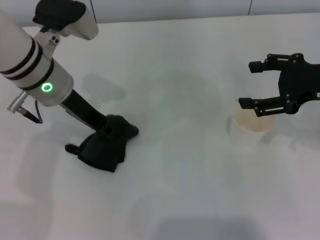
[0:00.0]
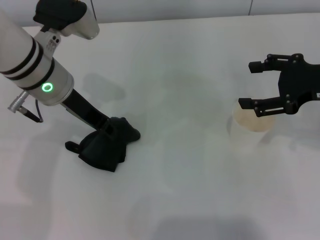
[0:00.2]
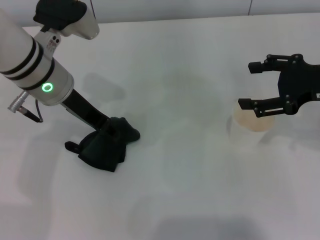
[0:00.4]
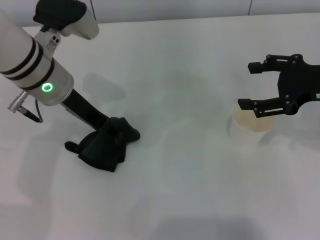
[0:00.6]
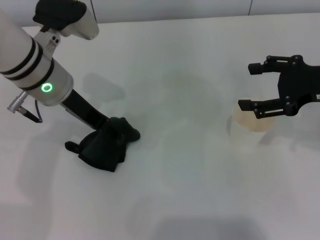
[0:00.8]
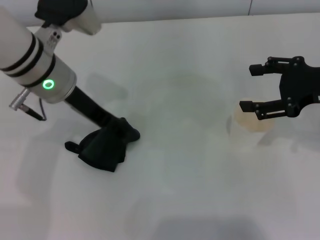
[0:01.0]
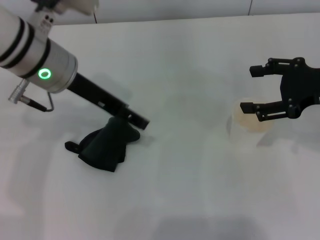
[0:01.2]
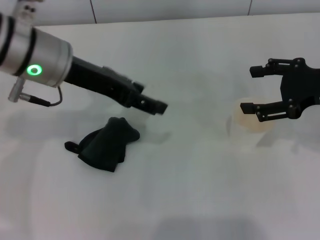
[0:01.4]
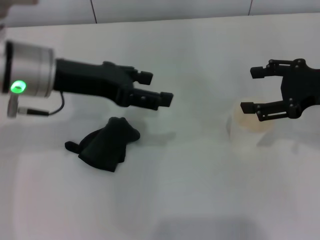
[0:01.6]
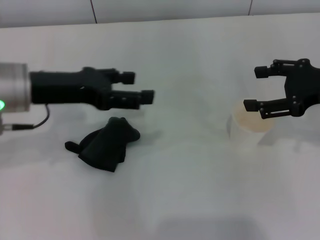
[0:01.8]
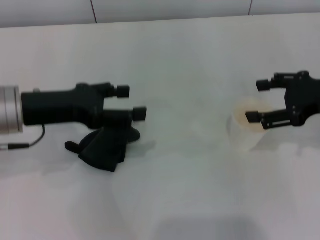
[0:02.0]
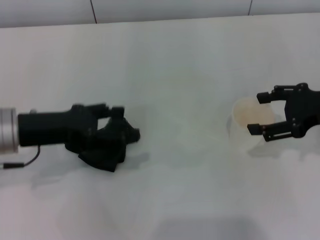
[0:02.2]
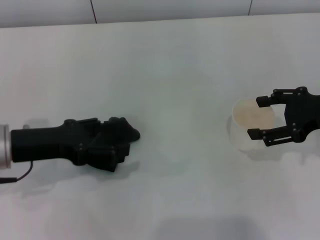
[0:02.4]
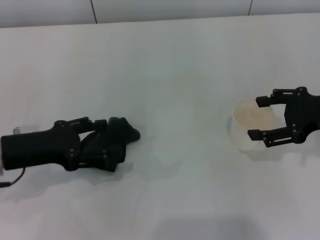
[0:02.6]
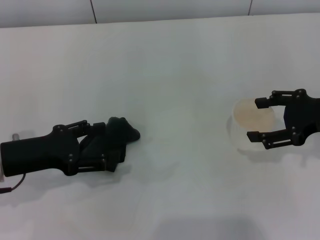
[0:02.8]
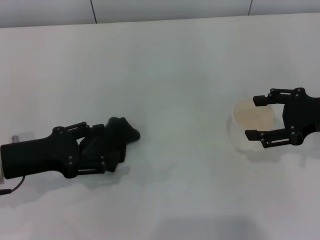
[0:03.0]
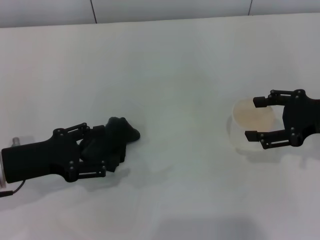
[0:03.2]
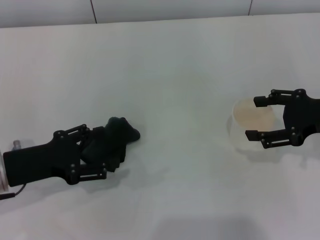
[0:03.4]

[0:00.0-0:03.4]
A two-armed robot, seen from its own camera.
Step, 0:00.0 to 0:01.0: Place the rag on the table with the left gripper.
0:00.0 to 0:01.6: The left gripper changes place by some 5 cm, and opens up.
0:01.6 to 0:03.4: The left gripper is displaced downward, to the left and backward by about 15 cm.

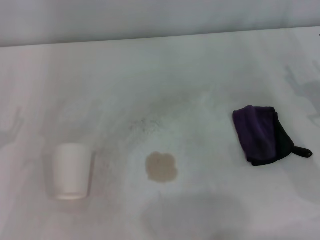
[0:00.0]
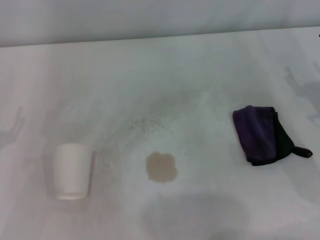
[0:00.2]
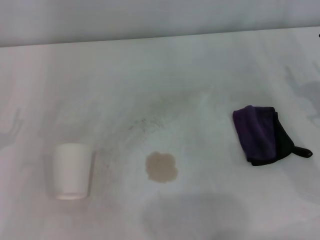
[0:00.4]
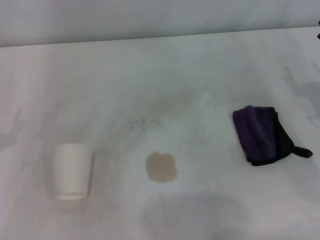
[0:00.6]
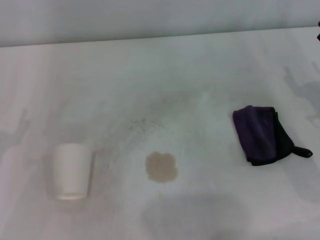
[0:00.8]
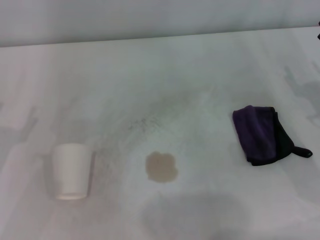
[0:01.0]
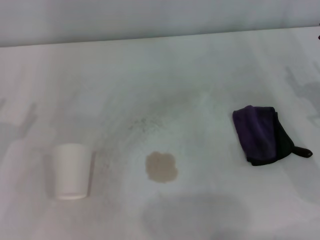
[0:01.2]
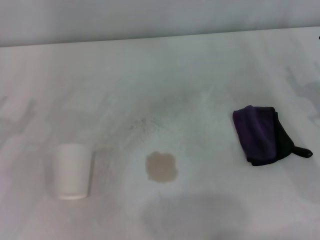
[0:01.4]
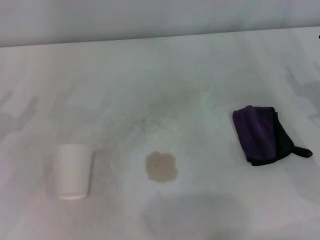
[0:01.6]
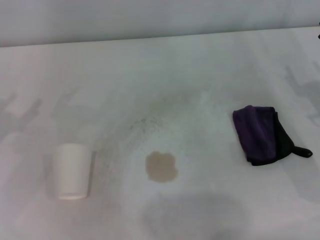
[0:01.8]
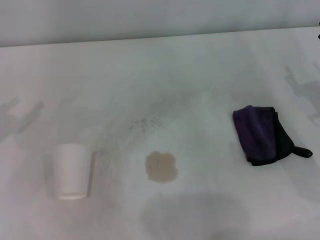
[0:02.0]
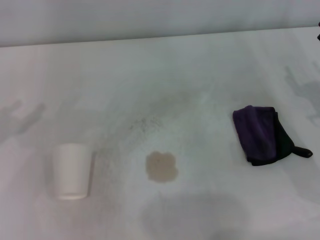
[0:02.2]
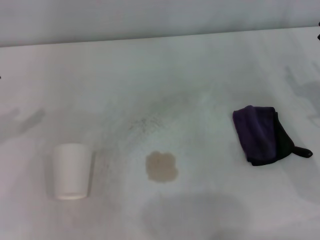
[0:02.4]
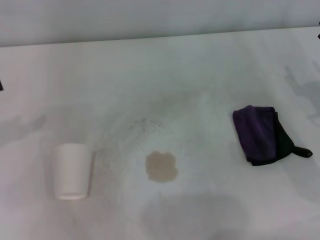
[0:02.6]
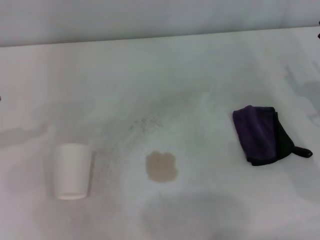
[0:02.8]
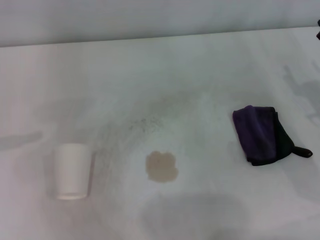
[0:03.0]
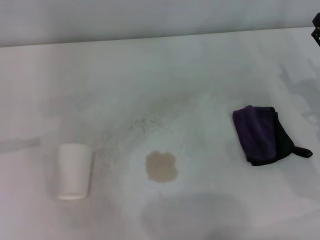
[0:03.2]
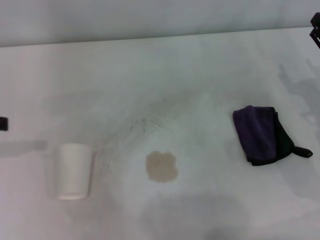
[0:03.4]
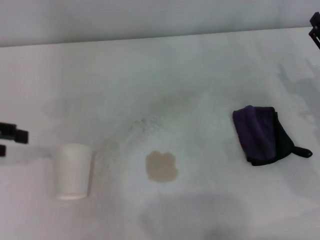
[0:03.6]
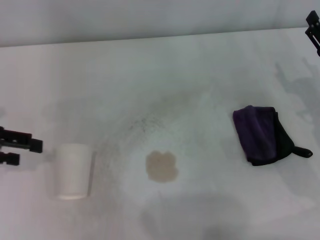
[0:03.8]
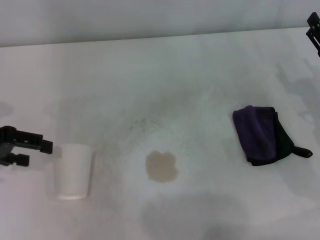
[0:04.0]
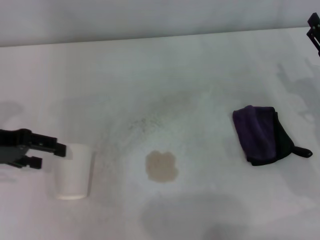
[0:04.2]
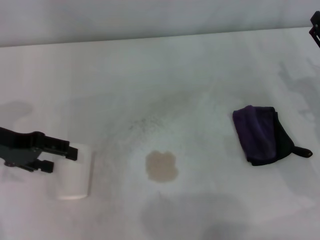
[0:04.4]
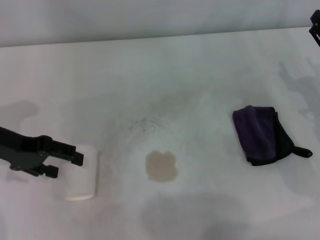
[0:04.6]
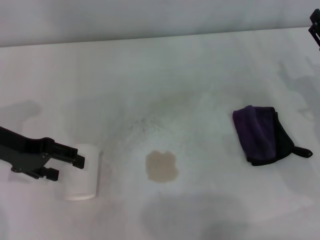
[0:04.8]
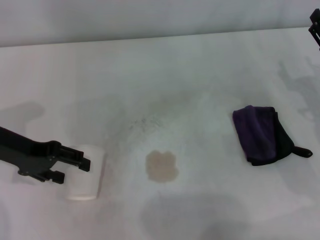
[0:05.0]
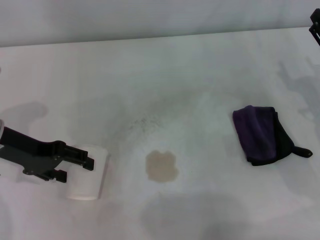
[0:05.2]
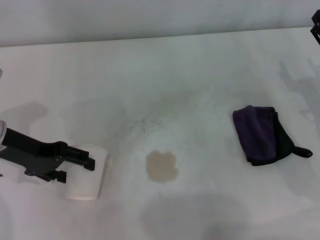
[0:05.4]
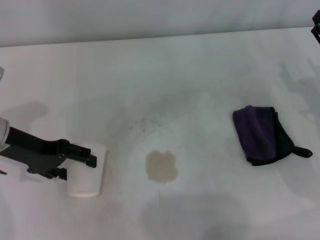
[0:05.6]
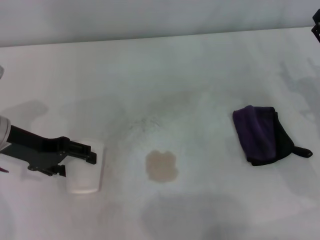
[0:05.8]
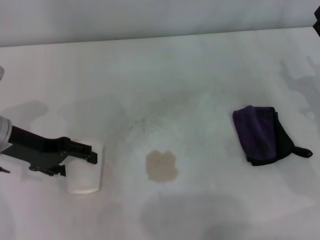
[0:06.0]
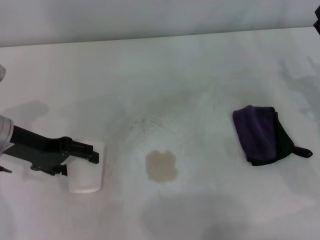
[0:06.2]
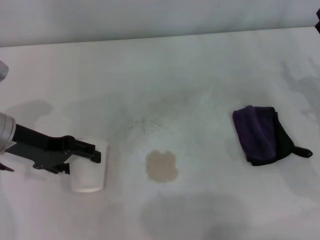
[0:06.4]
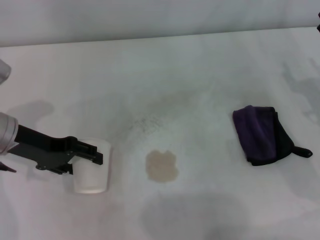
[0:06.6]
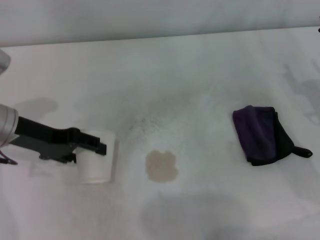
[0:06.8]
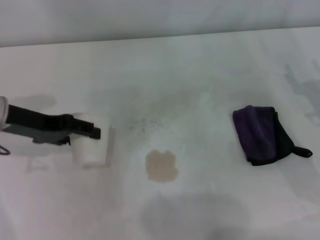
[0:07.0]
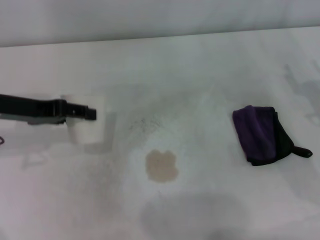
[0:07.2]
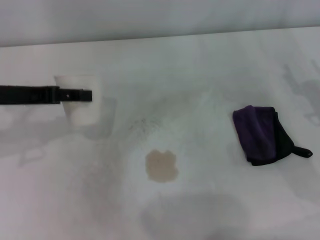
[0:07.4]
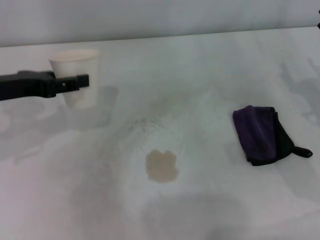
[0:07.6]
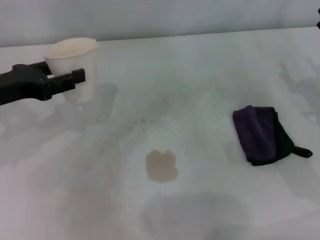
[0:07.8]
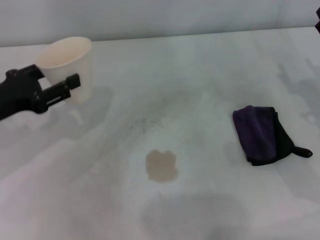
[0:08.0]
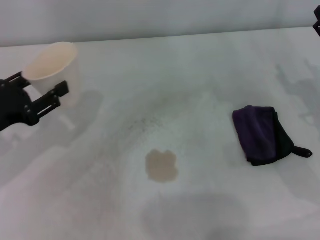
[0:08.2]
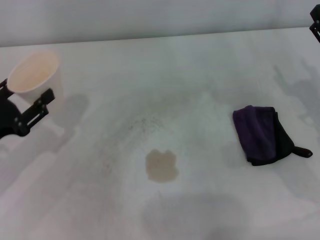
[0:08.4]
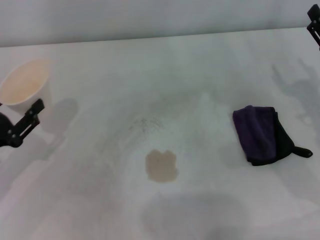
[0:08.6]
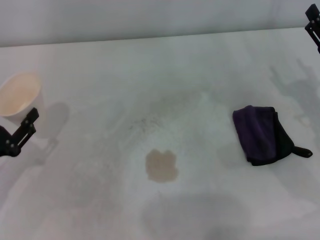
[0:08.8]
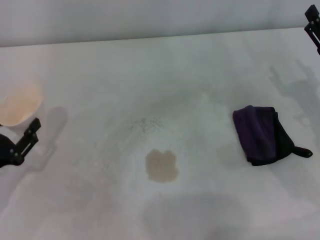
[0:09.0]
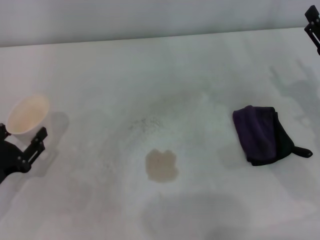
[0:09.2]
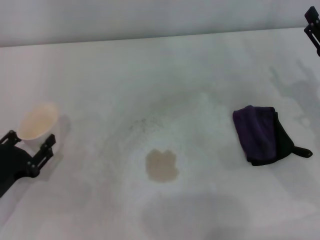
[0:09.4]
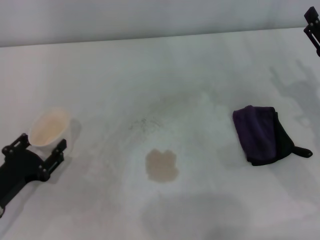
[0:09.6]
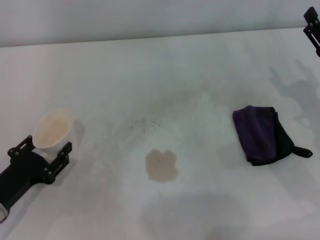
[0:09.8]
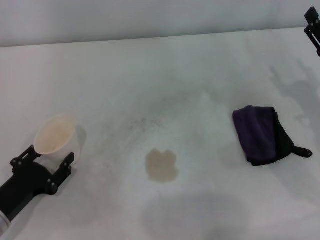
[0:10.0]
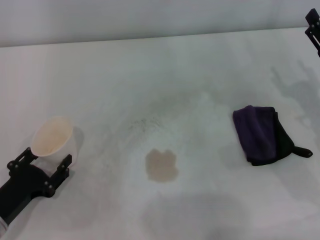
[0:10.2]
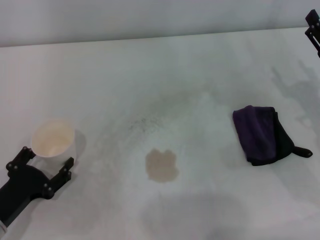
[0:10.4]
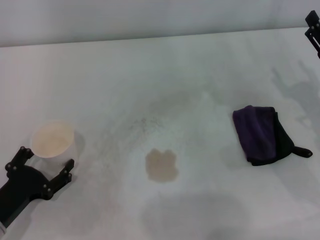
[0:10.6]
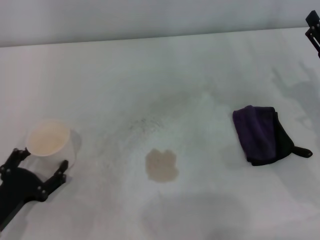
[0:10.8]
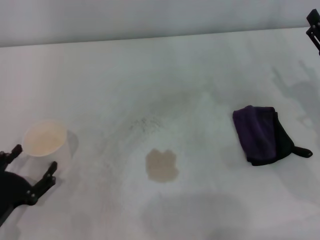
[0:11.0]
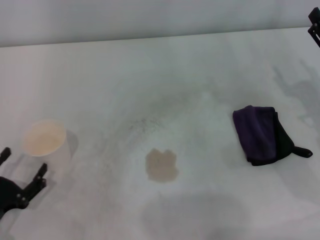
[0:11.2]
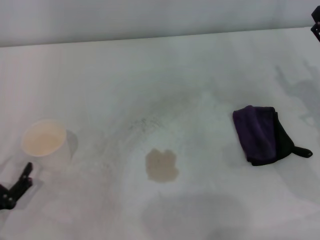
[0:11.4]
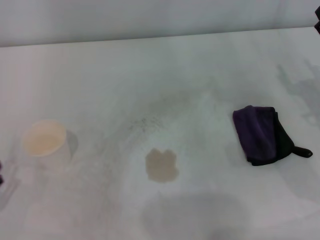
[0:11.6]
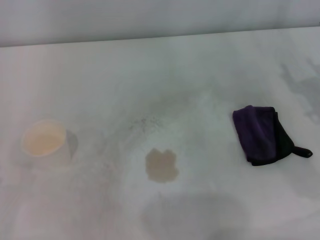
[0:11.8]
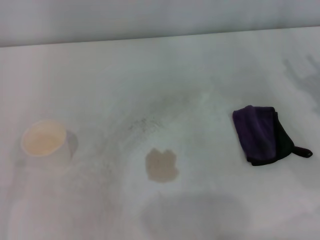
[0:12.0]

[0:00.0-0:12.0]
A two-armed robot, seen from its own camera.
Step, 0:00.0 to 0:06.4: Grasp the paper cup with the left gripper.
Step, 0:06.6 to 0:10.4: Stand the paper cup upright with the left gripper.
0:03.0 to 0:04.4: The left gripper moves to the right and downward, some 10 cm.
0:04.4 to 0:06.0: There are only small adjustments of the grippers.
0:06.0 to 0:07.6: The left gripper shifts about 5 cm upward, and closes its fingers.
0:07.6 to 0:09.0: The left gripper travels downward and backward by some 20 cm.
0:09.0 to 0:10.4: The left gripper ends up approximately 5 cm from where it was.
0:10.4 to 0:12.0: The left gripper is displaced to the left and backward by roughly 10 cm, and opens its fingers.

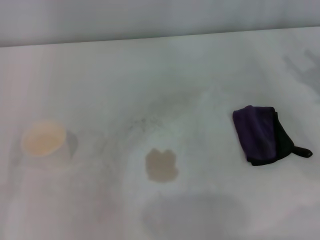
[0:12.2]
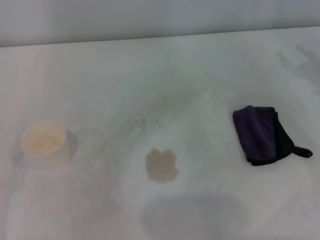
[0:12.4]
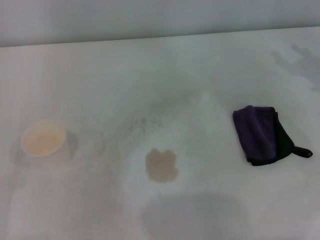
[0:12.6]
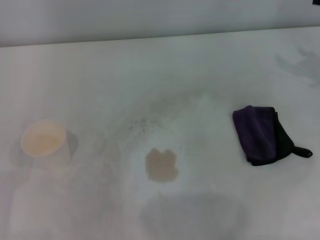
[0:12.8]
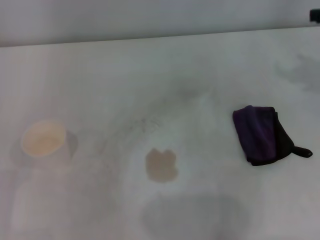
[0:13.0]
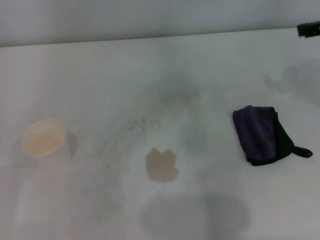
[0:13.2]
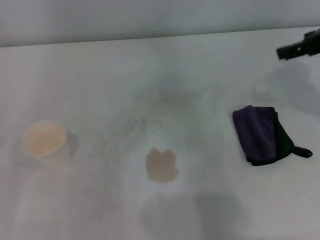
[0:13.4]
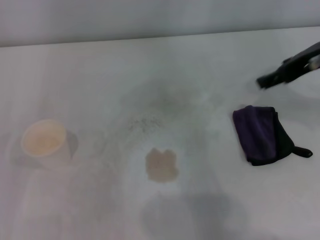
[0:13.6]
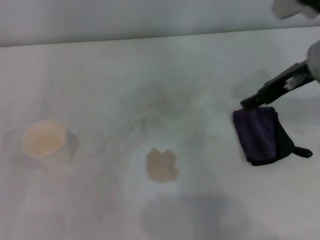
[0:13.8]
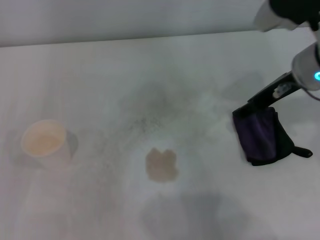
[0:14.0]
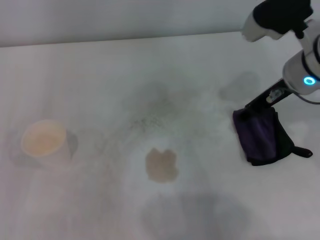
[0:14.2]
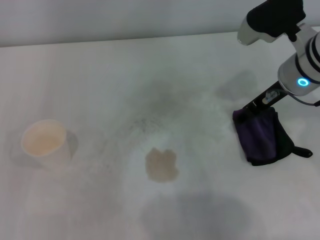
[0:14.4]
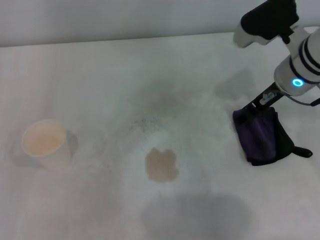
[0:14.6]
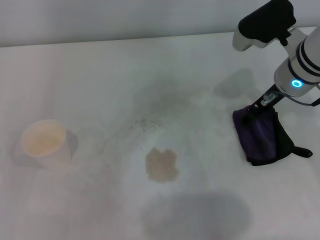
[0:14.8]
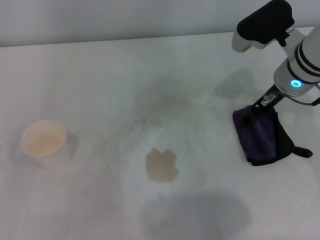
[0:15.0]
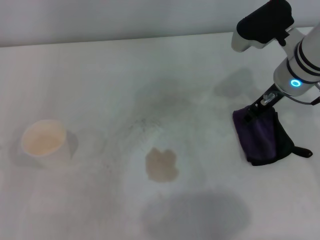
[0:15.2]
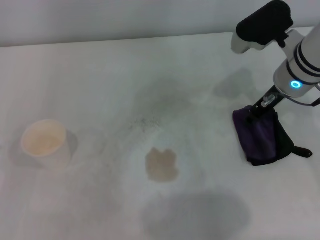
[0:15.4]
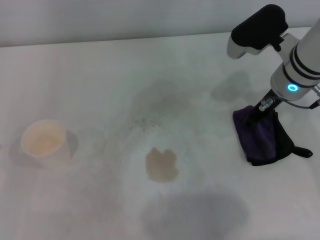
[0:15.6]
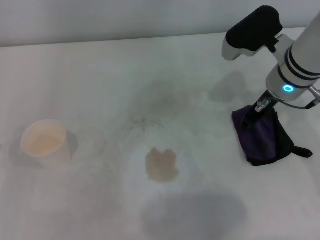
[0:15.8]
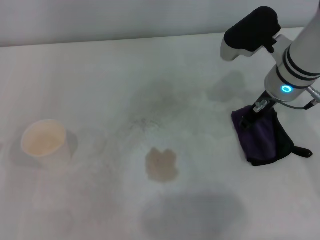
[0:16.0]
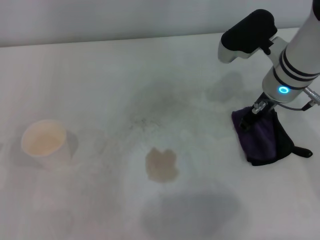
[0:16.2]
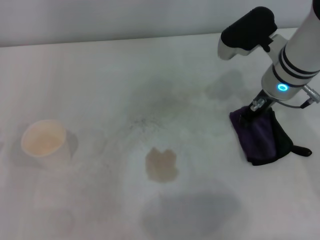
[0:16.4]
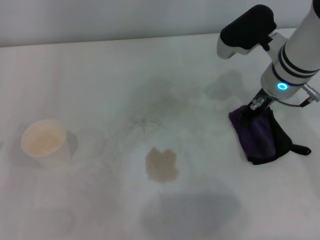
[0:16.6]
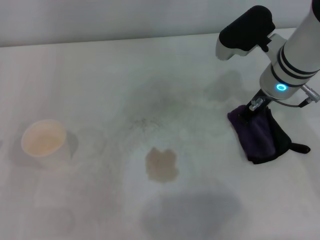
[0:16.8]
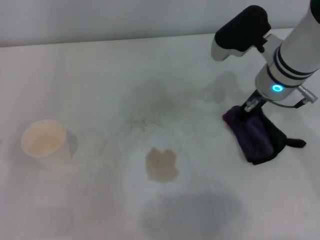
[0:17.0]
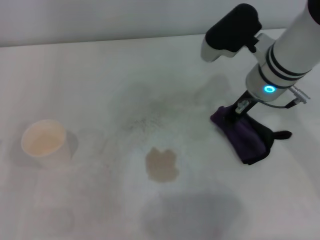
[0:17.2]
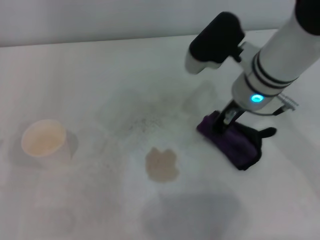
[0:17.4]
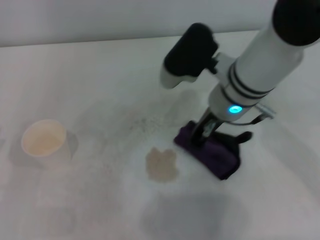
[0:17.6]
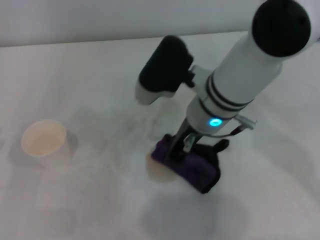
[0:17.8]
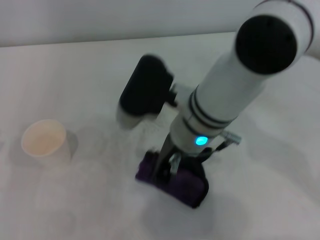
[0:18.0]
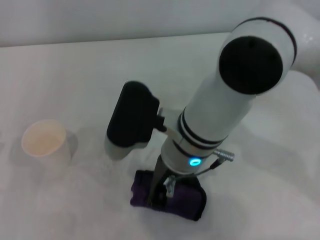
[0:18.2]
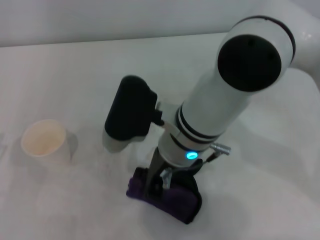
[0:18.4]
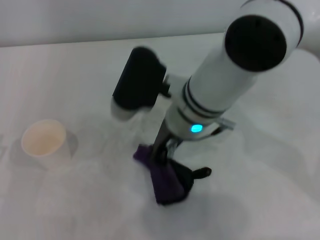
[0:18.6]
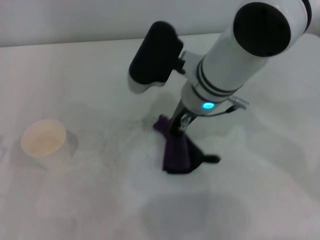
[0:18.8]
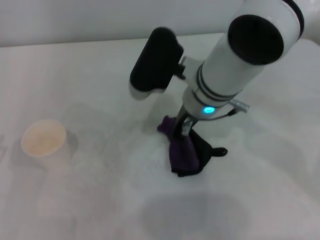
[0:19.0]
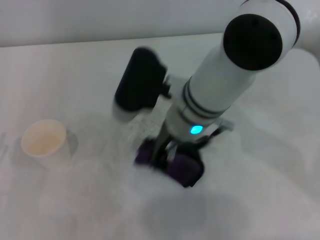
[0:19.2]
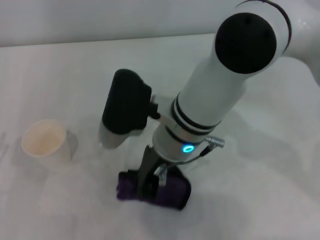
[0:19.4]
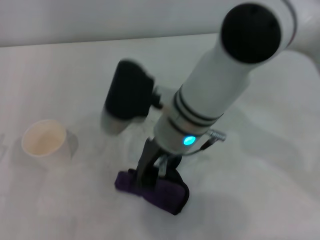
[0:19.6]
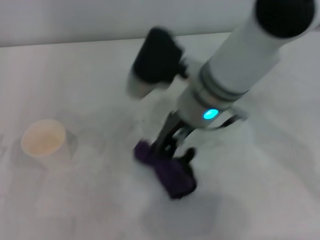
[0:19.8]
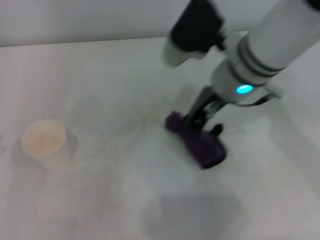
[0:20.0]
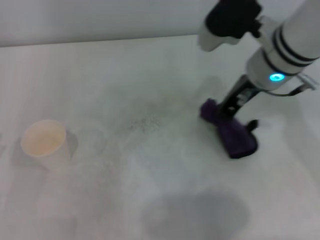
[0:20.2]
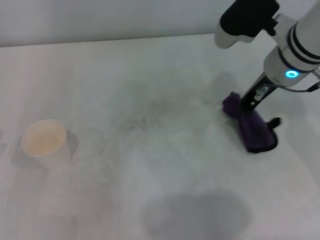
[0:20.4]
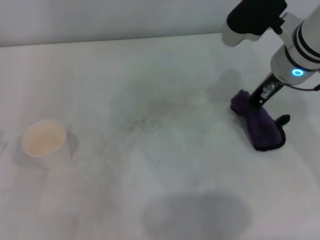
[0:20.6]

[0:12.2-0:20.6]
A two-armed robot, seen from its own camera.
Step, 0:12.2 to 0:16.8: Grasp the rag with the right gripper.
Step, 0:17.0 to 0:20.6: Wipe the stains off the table with the right gripper.
0:12.2 to 0:13.6: The right gripper shifts roughly 15 cm upward and to the left.
0:13.6 to 0:15.0: The right gripper goes approximately 10 cm downward.
0:15.0 to 0:16.4: The right gripper closes its fingers.
0:16.4 to 0:17.8: The right gripper is displaced to the left by approximately 10 cm.
0:17.8 to 0:19.2: There are only small adjustments of the grippers.
0:19.2 to 0:20.6: The right gripper heads to the right, covering roughly 15 cm.
